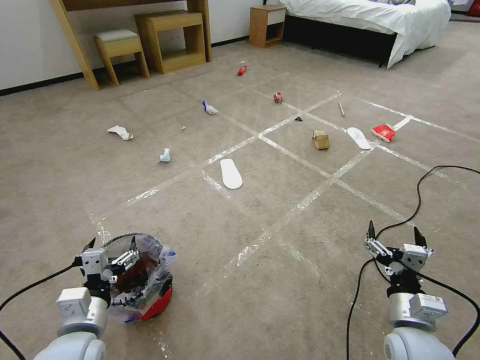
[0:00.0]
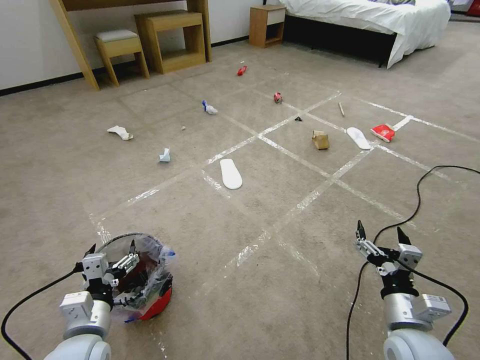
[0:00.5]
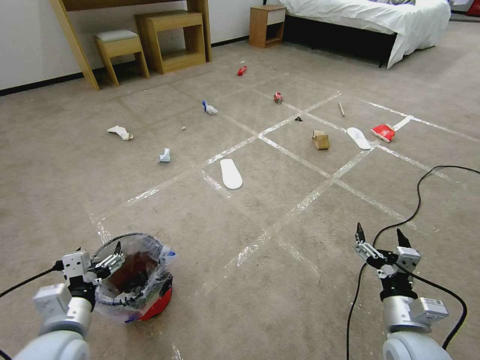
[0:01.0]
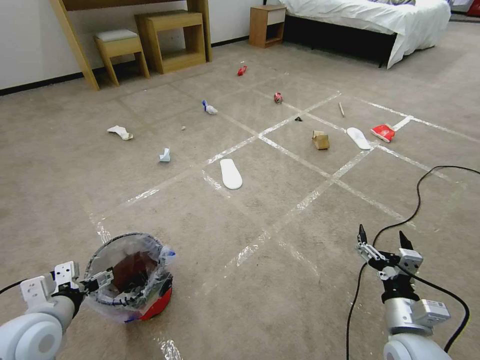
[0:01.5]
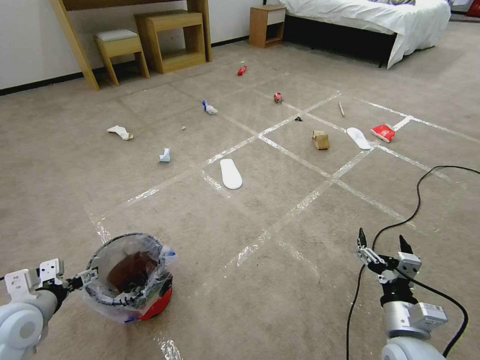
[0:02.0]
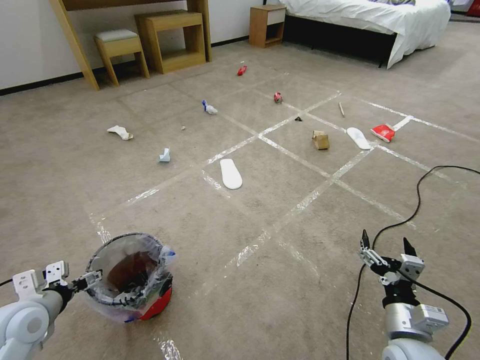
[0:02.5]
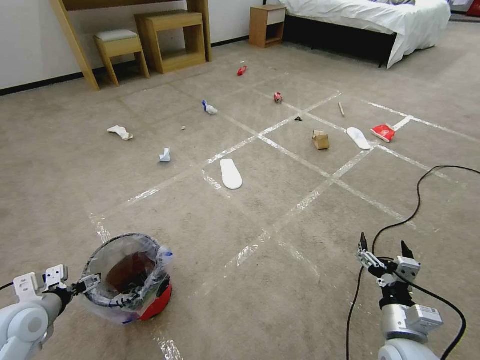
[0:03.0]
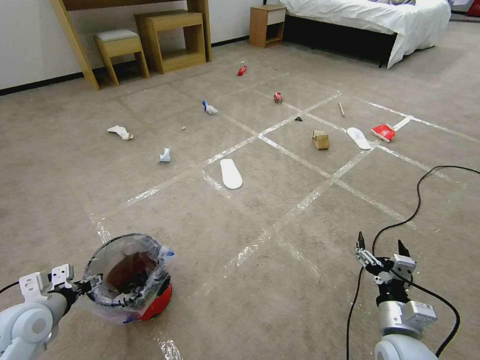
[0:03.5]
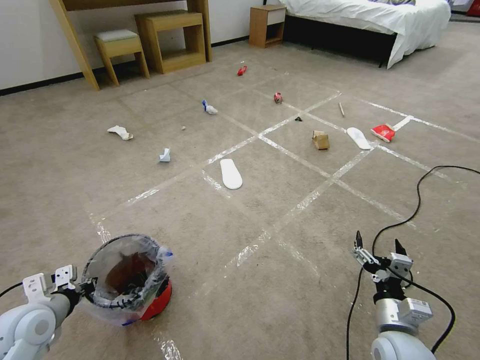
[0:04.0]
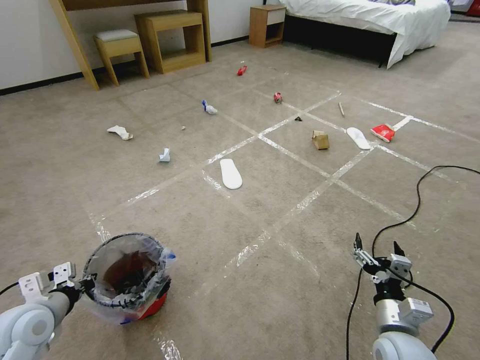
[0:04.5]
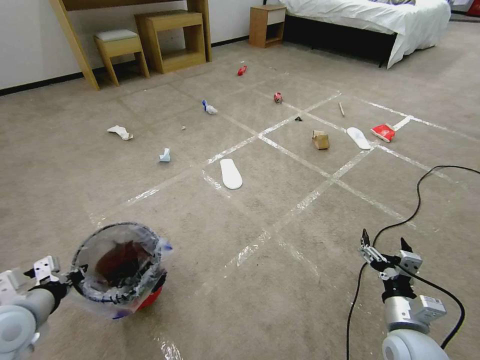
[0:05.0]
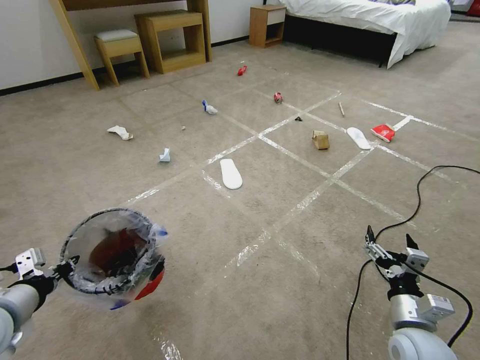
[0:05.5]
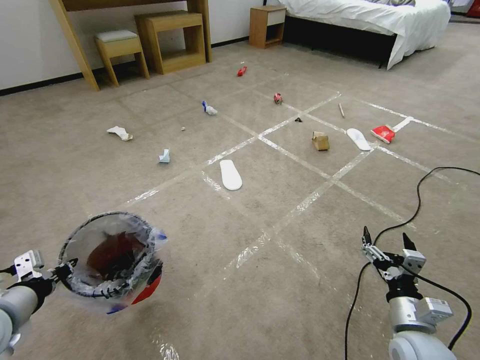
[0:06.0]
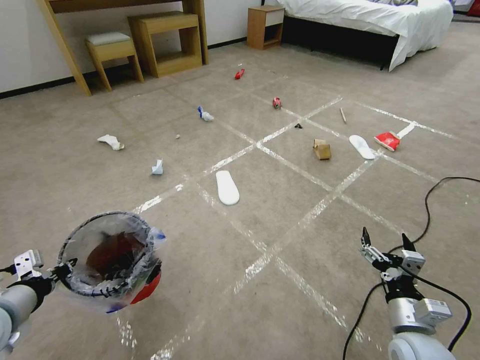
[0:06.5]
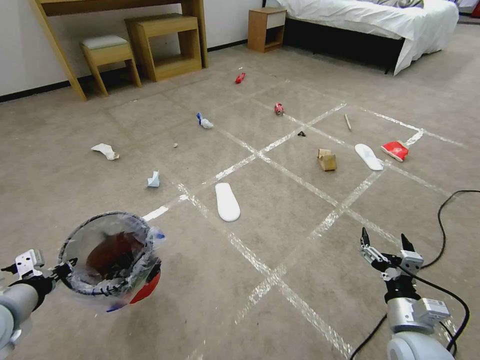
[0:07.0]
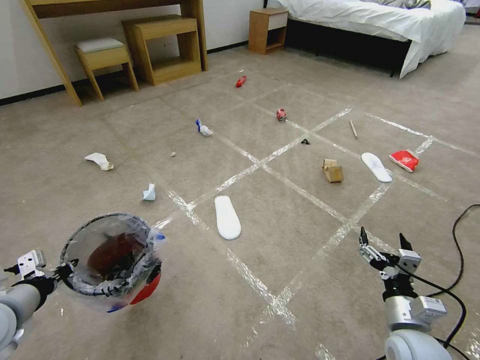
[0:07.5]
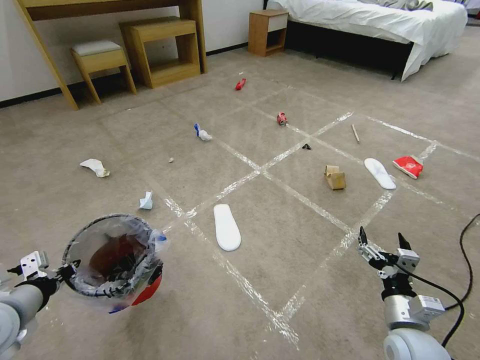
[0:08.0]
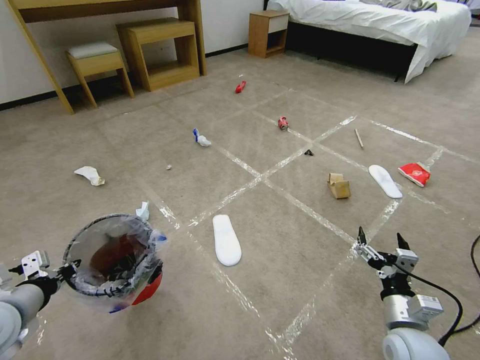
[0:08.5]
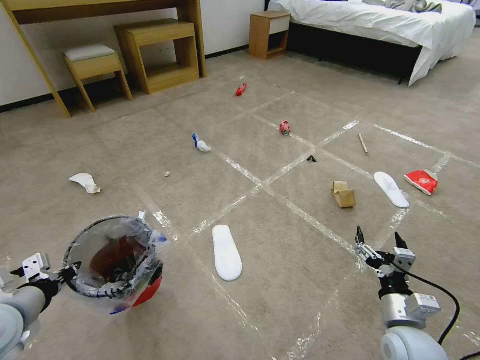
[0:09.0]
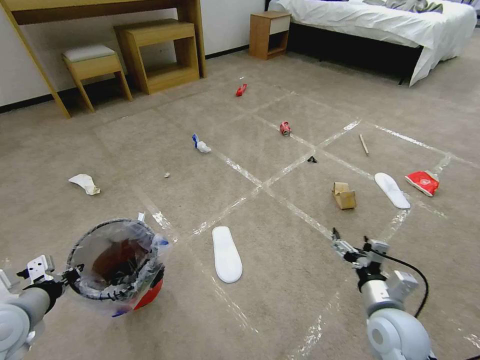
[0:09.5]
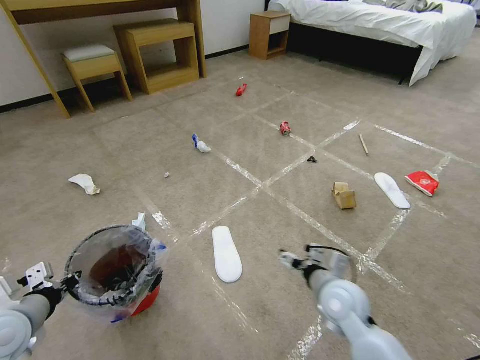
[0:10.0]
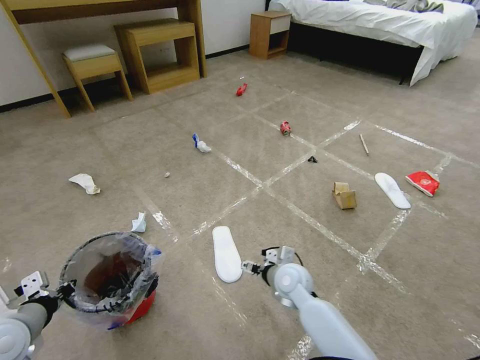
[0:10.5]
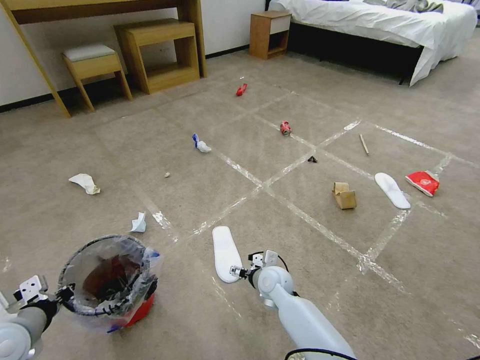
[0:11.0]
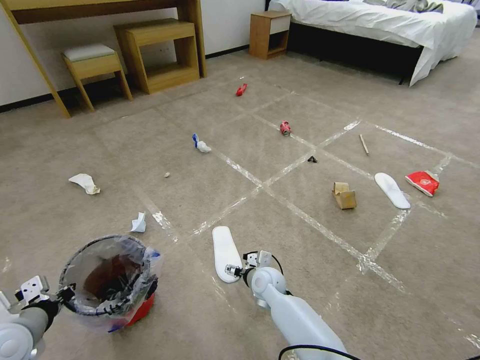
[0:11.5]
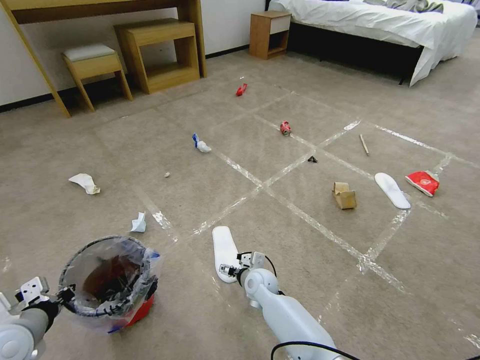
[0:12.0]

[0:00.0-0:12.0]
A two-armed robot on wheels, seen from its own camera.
Task of the whole recording: Pick up the trash bin and place the garbage on the floor into it.
0:02.0 to 0:04.0: The left gripper closes its fingers.
0:04.0 to 0:06.0: The left gripper travels upward by roughly 10 cm.
0:08.0 to 0:10.0: The right gripper moves to the left and forward, about 15 cm.
0:10.0 to 0:12.0: The right gripper heads to the left, downward and forward, covering some 25 cm.

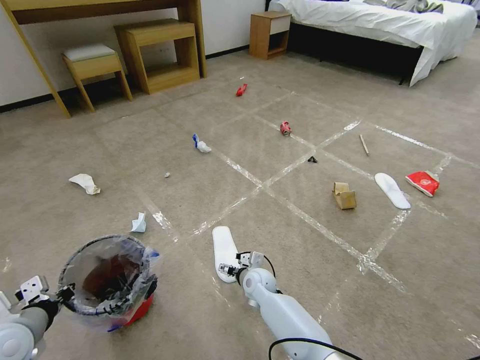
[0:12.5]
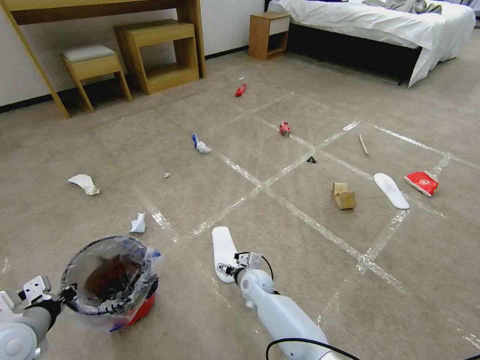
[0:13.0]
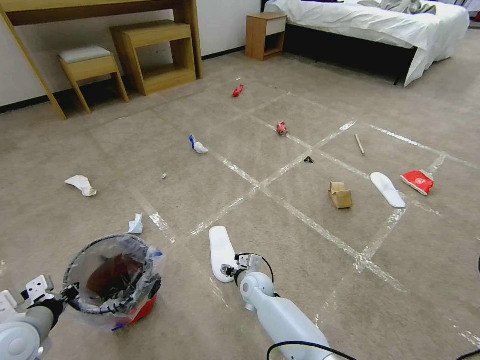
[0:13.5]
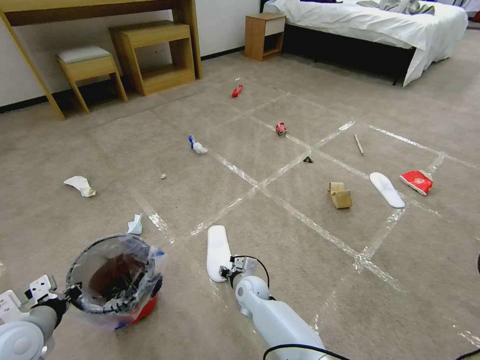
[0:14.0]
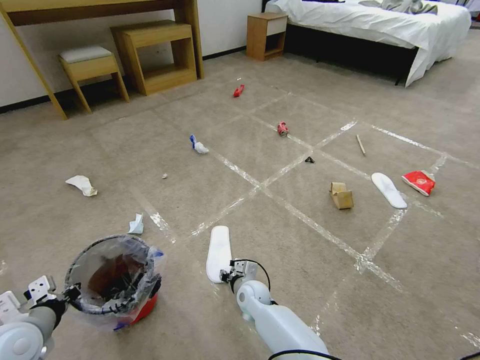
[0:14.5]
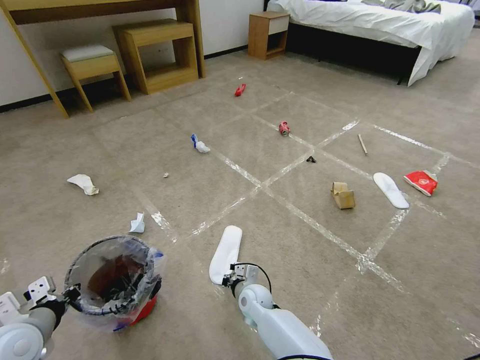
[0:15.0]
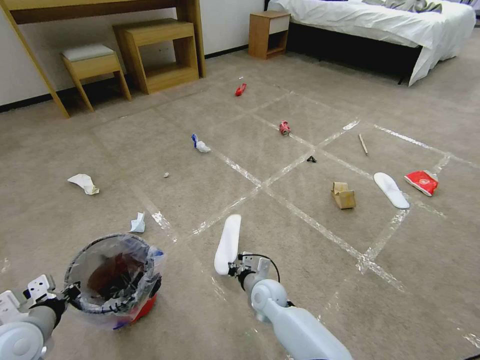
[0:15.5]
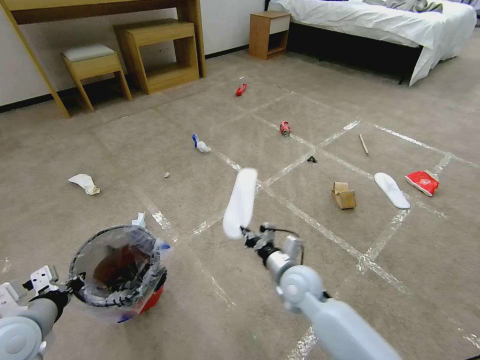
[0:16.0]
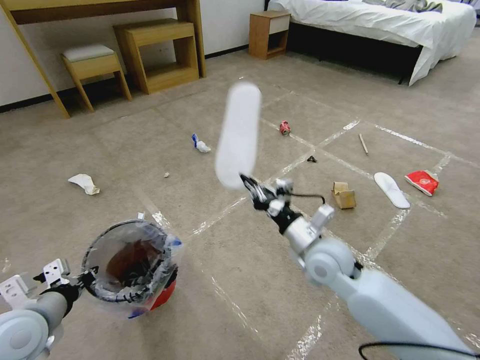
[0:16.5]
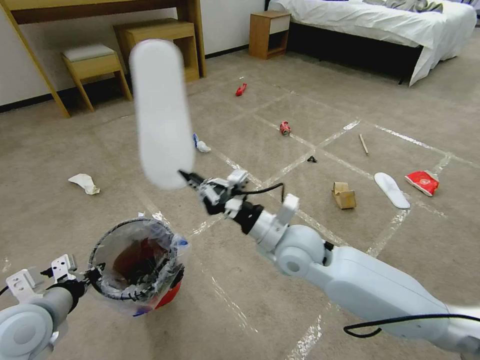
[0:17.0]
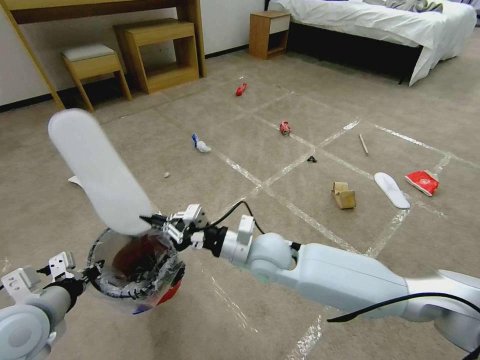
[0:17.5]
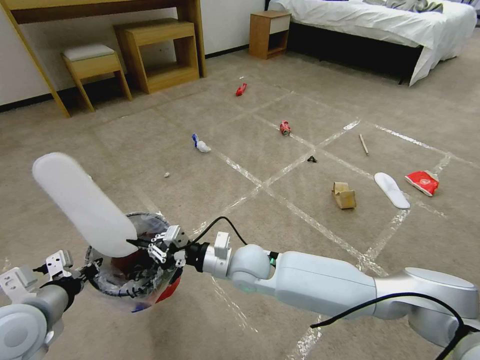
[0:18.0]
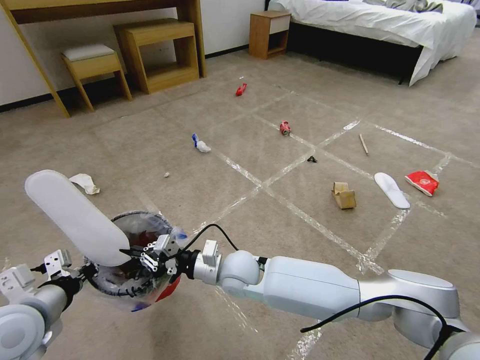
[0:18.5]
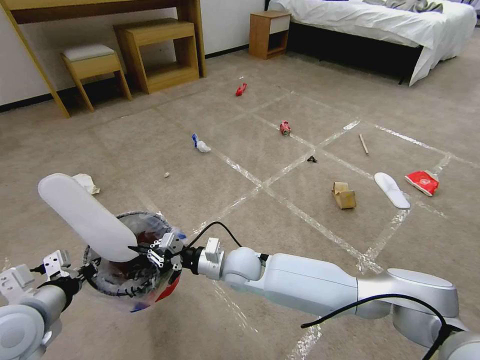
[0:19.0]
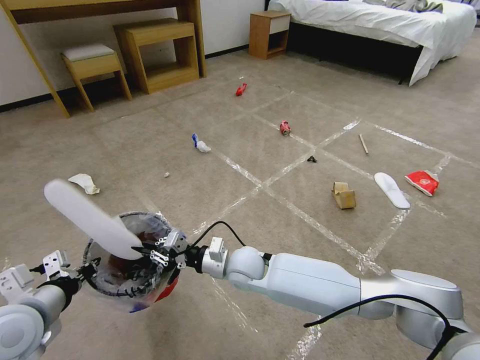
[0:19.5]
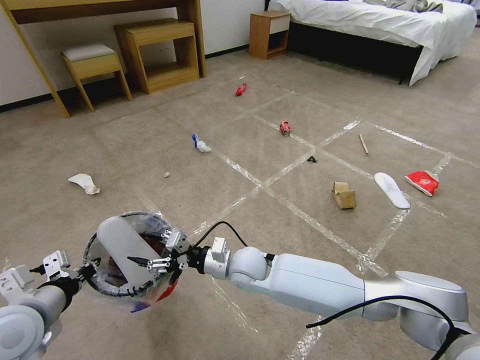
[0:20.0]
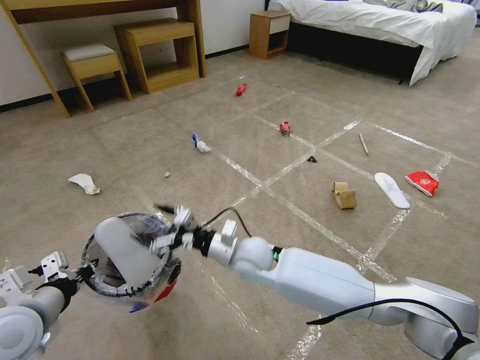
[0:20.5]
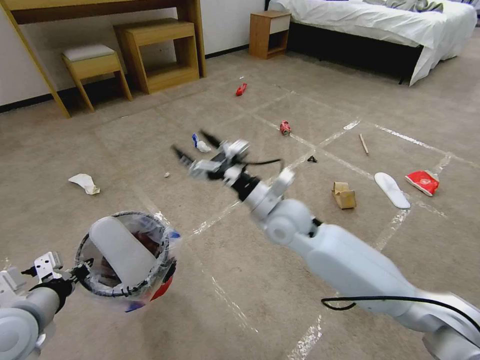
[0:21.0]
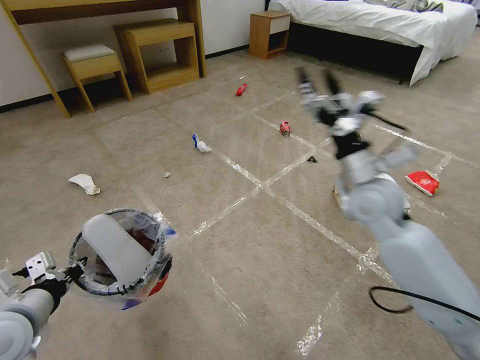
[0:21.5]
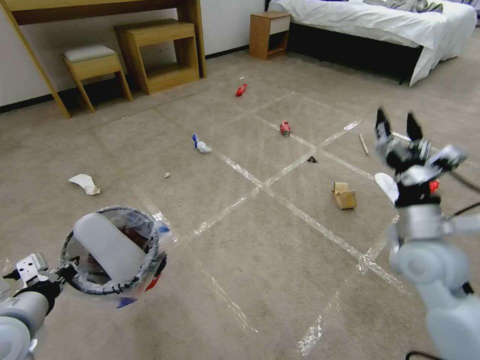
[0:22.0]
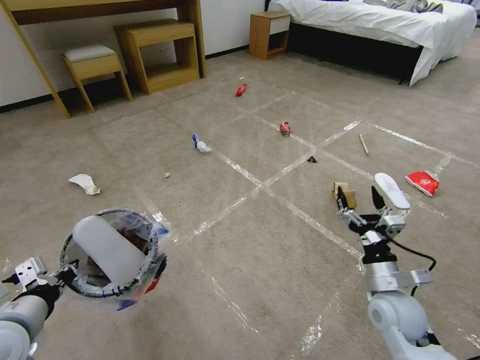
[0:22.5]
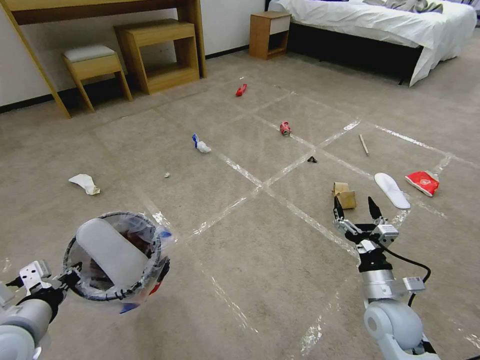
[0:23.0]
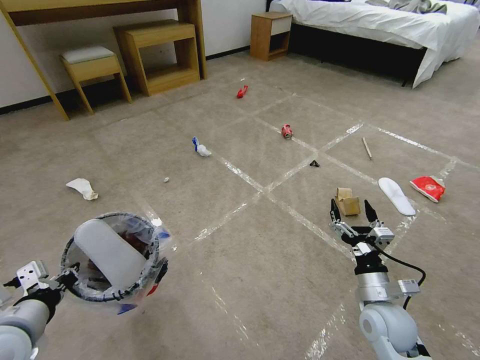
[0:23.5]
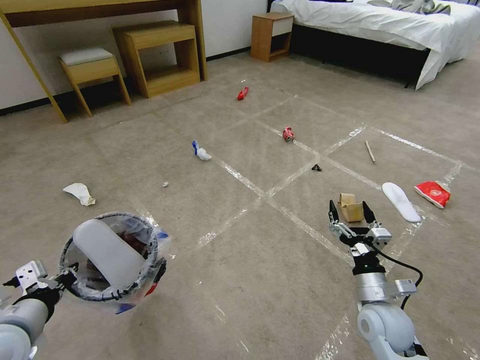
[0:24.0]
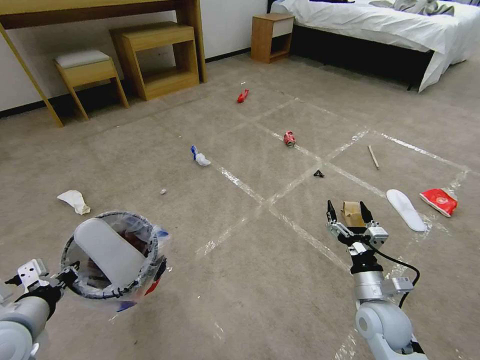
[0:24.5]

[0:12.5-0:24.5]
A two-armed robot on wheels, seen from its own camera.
Task of the whole recording: Pick up the trash bin and place the garbage on the floor into it.
0:12.5 to 0:14.5: The right gripper closes up.
0:14.5 to 0:16.5: The right gripper shifts approximately 30 cm upward and to the right, and closes up. Meanwhile the left gripper moves approximately 5 cm.
0:16.5 to 0:18.5: The right gripper goes some 20 cm to the left.
0:18.5 to 0:20.5: The right gripper opens.
0:20.5 to 0:22.5: The right gripper goes roughly 30 cm to the right.
0:22.5 to 0:24.5: There are only small adjustments of the grippers.

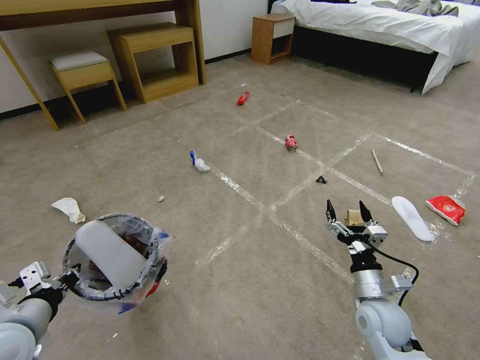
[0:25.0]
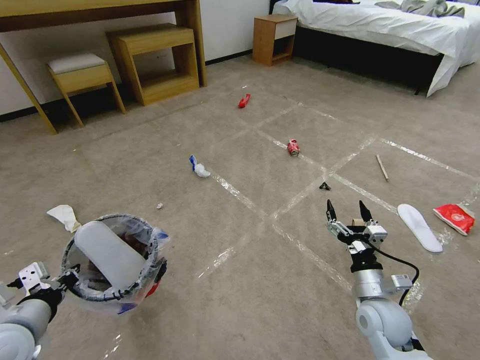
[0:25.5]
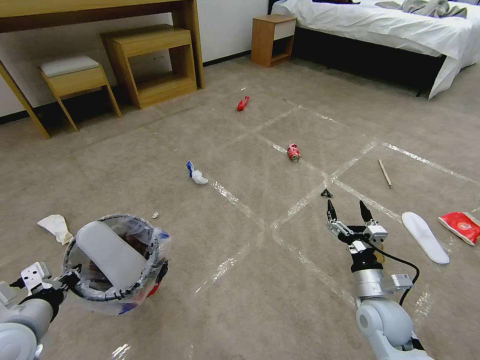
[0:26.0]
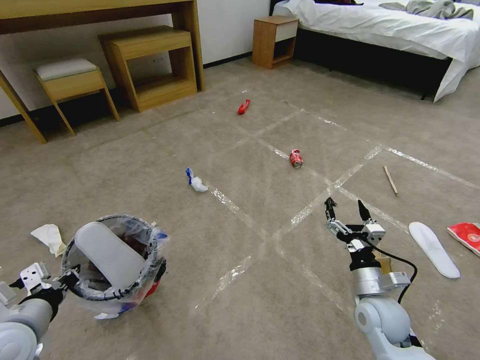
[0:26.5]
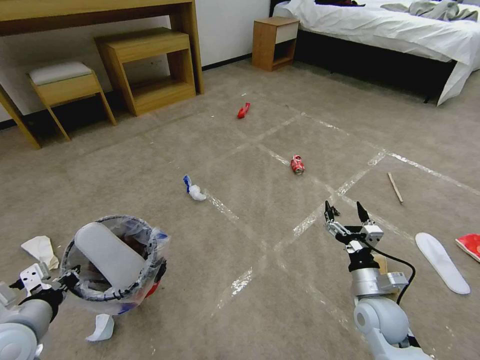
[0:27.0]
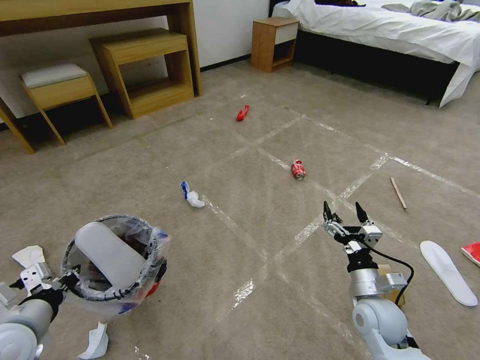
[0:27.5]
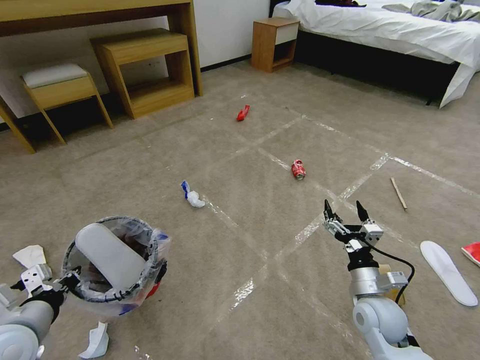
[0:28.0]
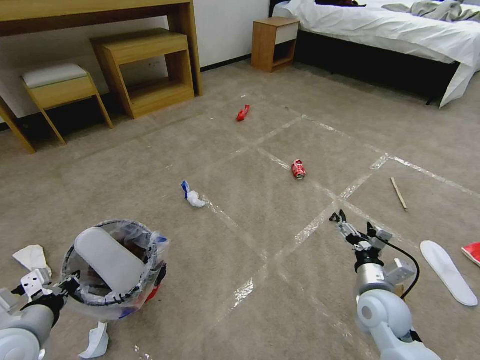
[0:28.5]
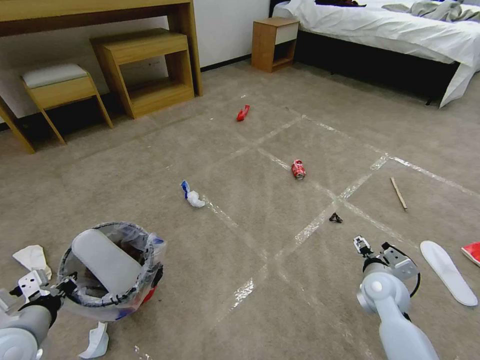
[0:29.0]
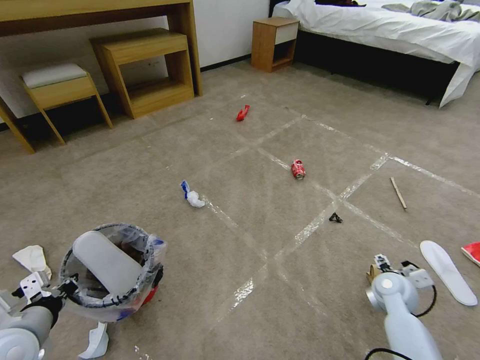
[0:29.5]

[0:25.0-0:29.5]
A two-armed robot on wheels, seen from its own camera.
Task of the whole recording: Pick up the trash bin and place the garbage on the floor into it.
0:27.0 to 0:29.5: The right gripper is displaced to the right and forward by about 10 cm.
